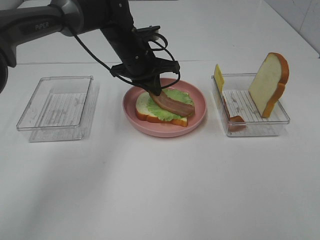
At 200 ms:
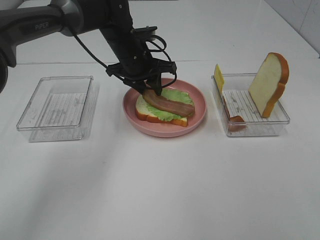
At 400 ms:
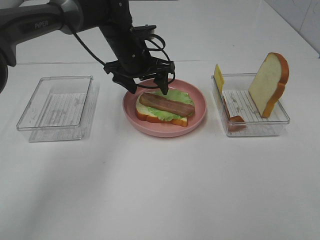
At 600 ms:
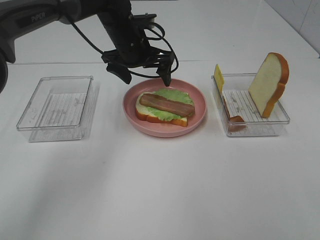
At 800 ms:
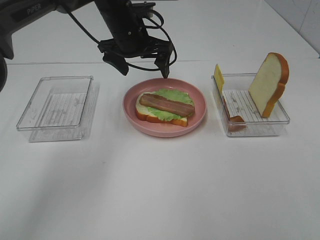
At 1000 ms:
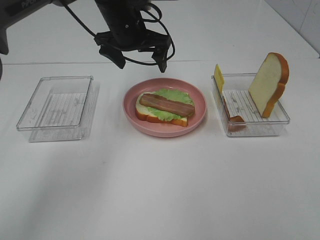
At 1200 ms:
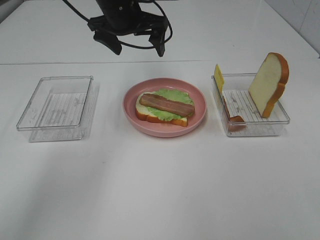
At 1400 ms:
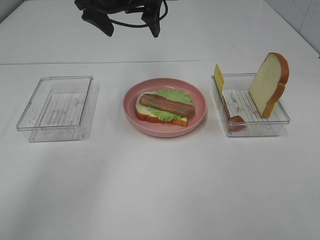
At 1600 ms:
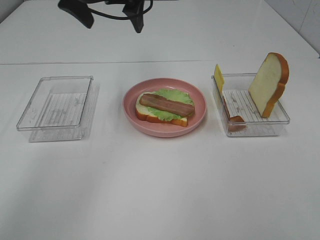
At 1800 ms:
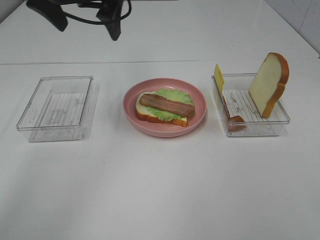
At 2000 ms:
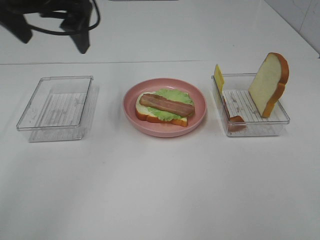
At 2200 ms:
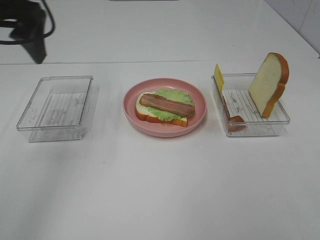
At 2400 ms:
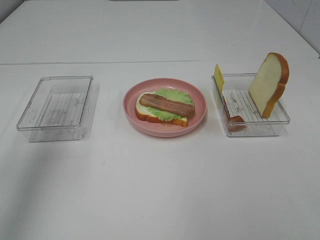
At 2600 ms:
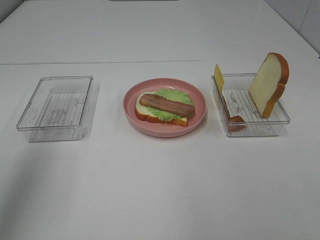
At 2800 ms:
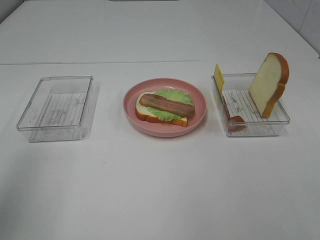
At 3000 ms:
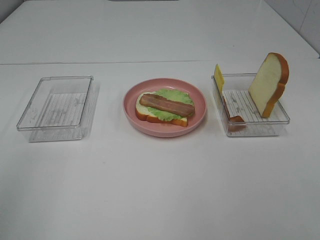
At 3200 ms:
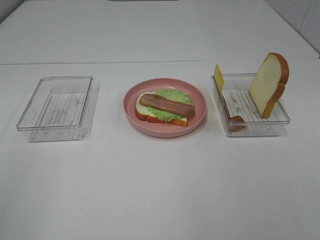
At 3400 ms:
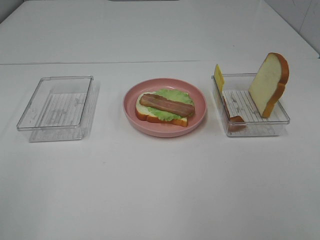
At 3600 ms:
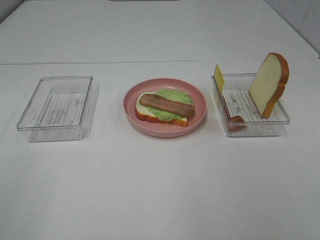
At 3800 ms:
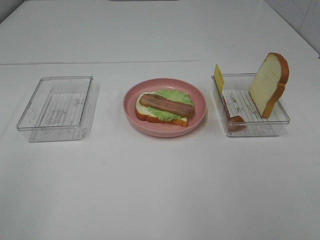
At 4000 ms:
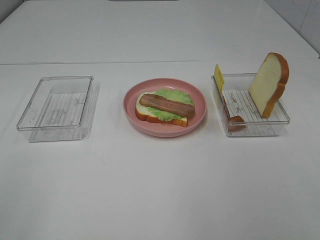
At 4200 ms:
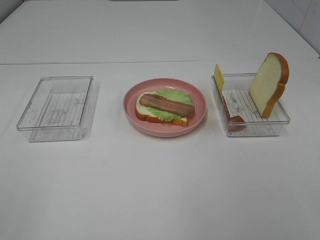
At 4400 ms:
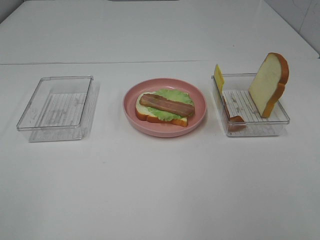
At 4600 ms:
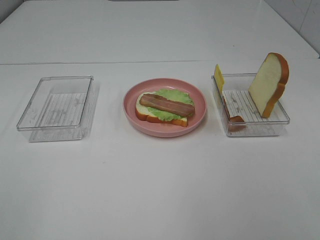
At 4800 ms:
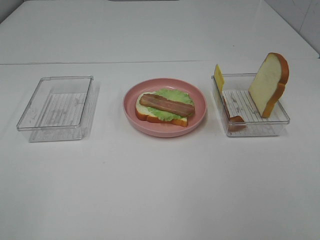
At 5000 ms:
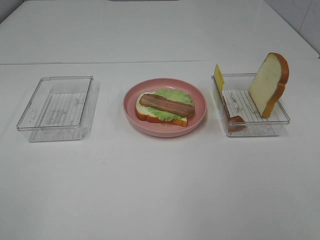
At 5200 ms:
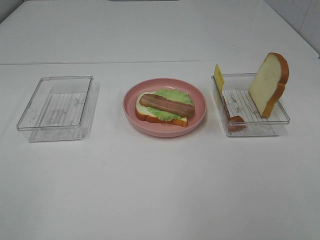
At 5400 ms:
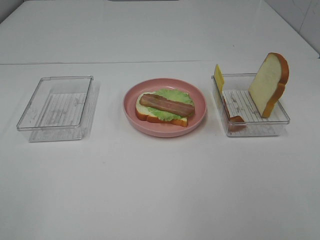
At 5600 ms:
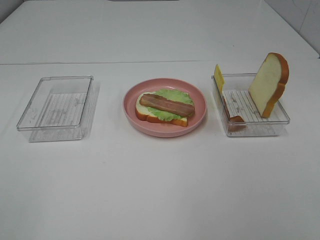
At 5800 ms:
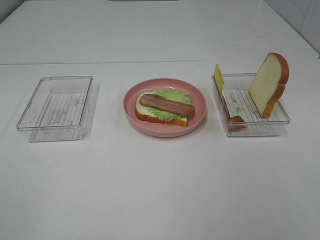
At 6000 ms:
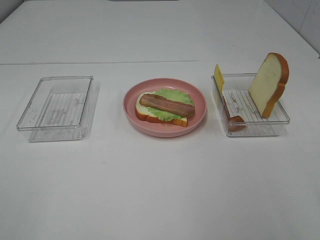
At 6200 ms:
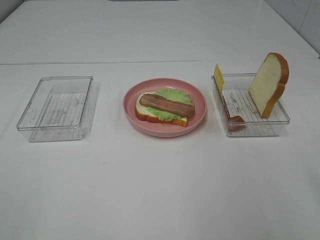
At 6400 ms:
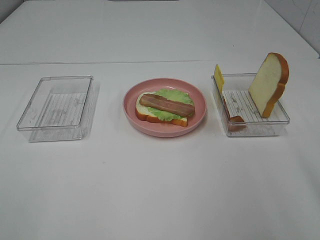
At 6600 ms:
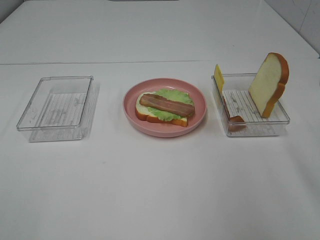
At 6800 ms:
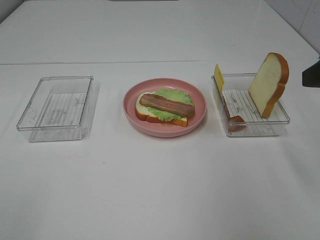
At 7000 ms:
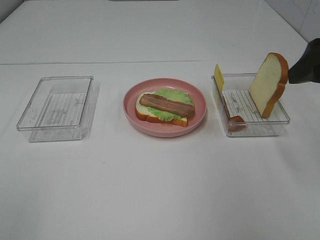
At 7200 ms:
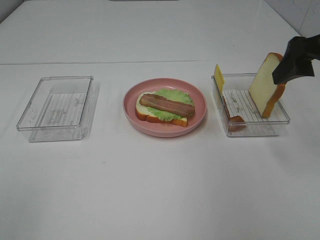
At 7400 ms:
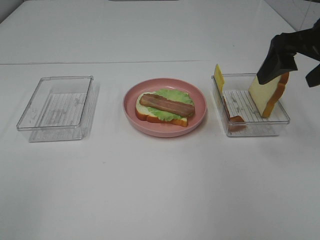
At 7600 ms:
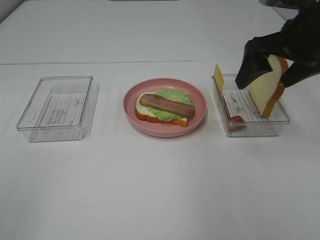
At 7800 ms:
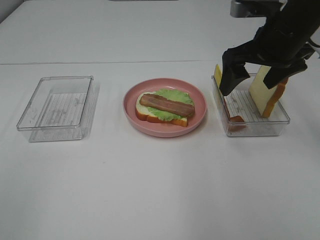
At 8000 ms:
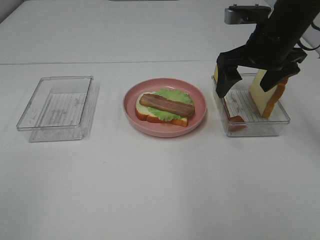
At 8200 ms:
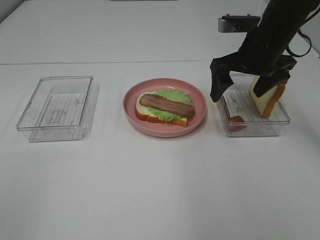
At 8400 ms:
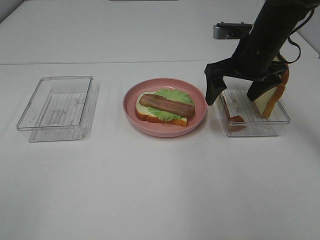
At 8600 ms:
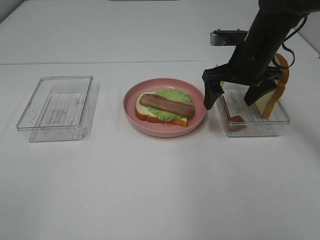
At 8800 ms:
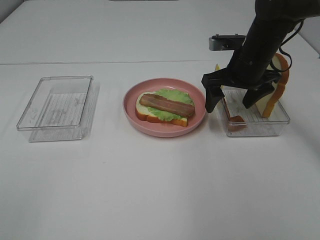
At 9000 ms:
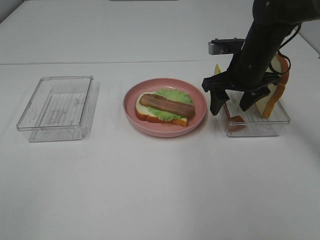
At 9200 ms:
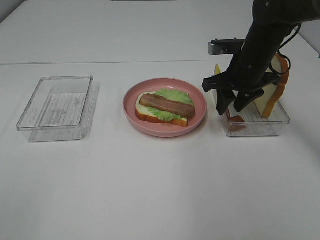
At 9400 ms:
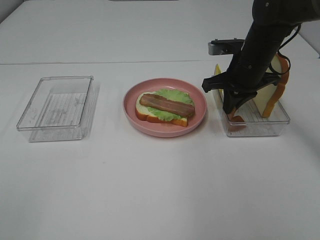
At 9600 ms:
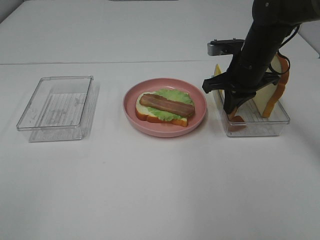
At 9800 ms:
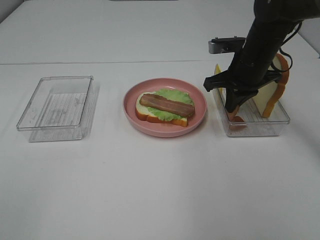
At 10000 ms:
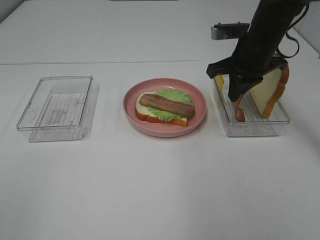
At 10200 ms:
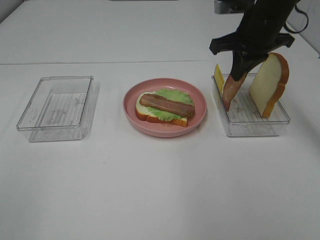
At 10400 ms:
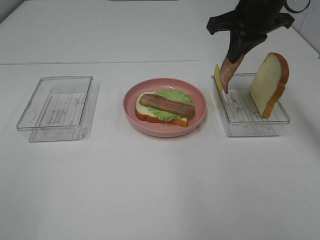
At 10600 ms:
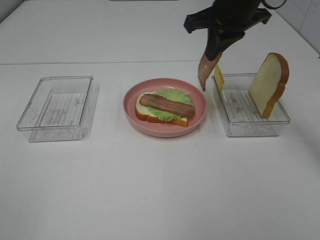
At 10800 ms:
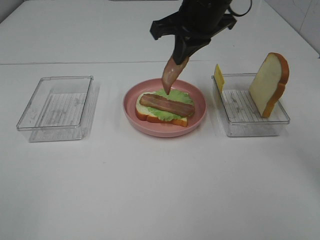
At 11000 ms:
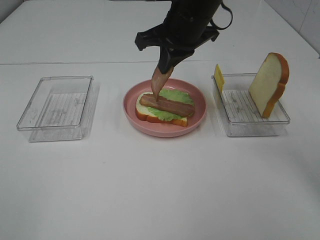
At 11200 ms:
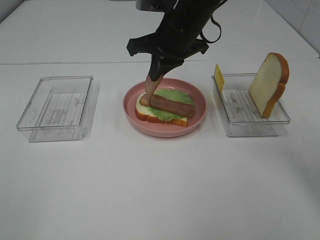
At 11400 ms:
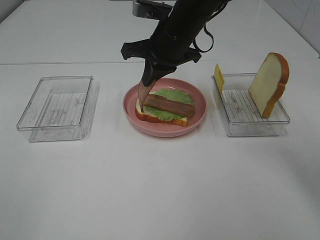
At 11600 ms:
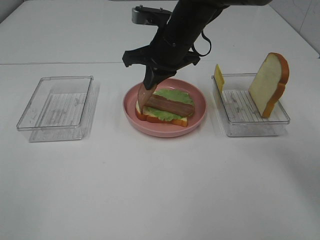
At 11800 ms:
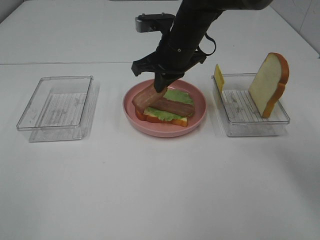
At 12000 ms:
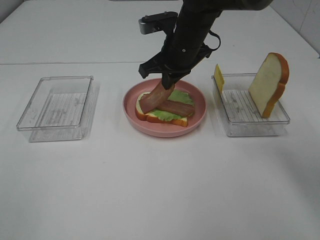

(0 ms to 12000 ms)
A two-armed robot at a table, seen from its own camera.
Task of the whole recording: Make sandwiches.
Step, 600 ms - 9800 ms: Right hand:grab the bacon.
0 ms - 1600 ms: The left gripper goes roughly 15 cm upward, and opens up.
1600 ms - 3000 ms: The left gripper moves backward and to the left, approximately 40 cm.
6000 ms - 7600 ms: The right gripper goes some 30 cm forward.
7600 ms - 9000 ms: The right gripper heads downward and forward, covering some 15 cm.
9000 ms - 10400 ms: The right gripper goes roughly 10 cm upward, and closes.
10400 ms - 12000 ms: The right gripper travels to the left and downward by about 15 cm.

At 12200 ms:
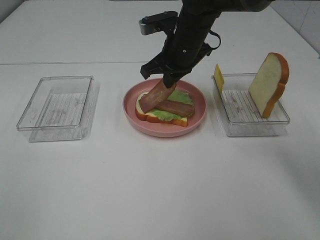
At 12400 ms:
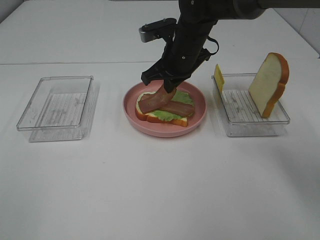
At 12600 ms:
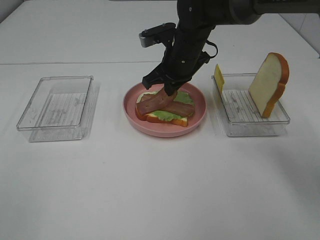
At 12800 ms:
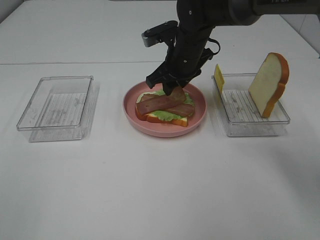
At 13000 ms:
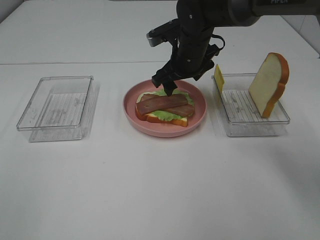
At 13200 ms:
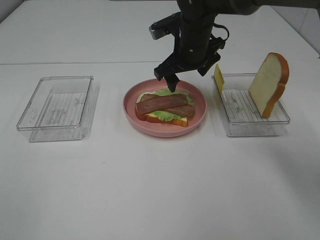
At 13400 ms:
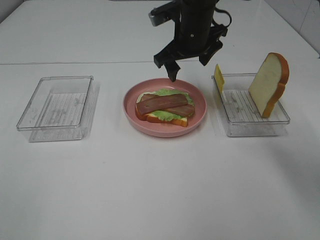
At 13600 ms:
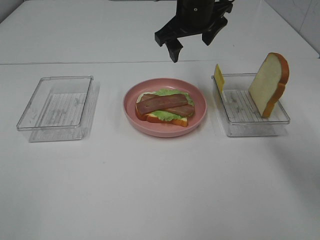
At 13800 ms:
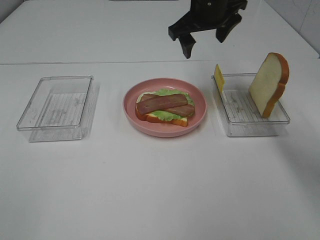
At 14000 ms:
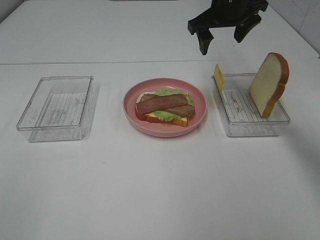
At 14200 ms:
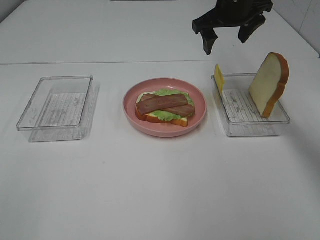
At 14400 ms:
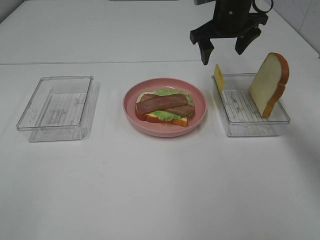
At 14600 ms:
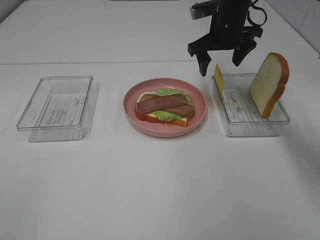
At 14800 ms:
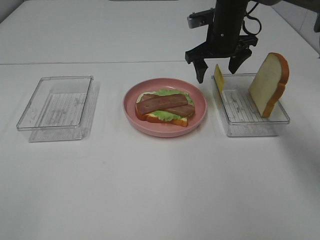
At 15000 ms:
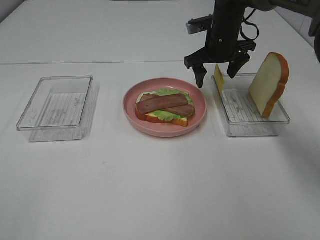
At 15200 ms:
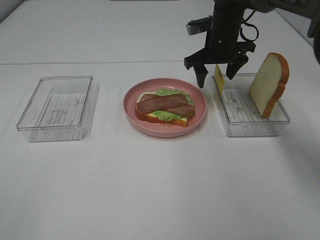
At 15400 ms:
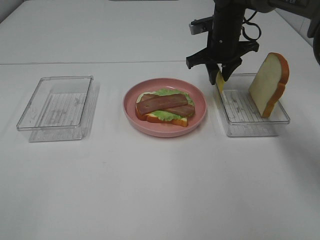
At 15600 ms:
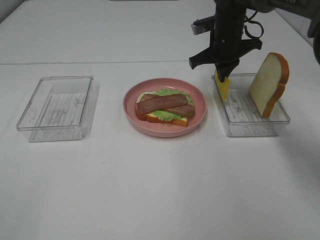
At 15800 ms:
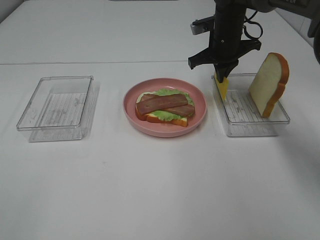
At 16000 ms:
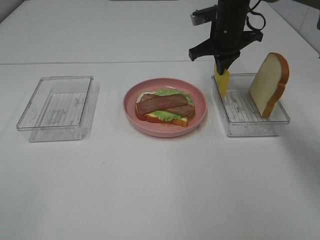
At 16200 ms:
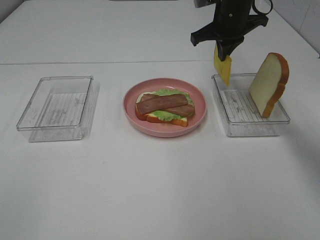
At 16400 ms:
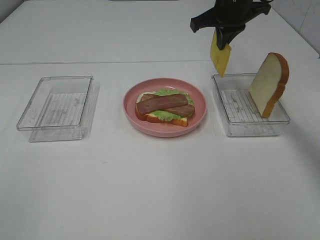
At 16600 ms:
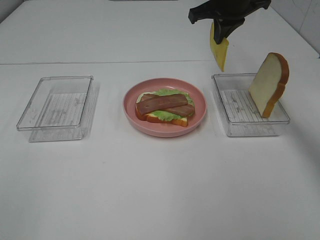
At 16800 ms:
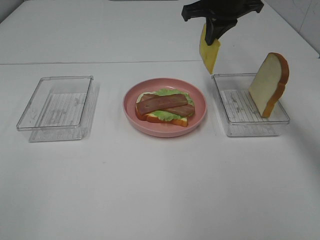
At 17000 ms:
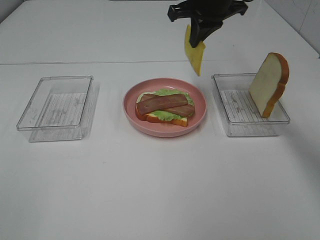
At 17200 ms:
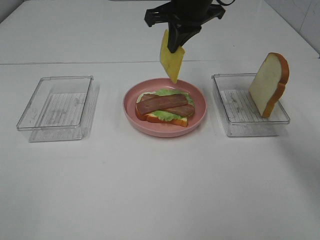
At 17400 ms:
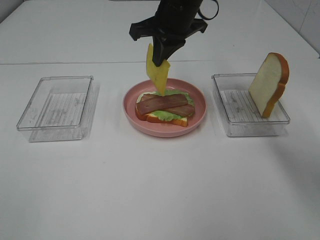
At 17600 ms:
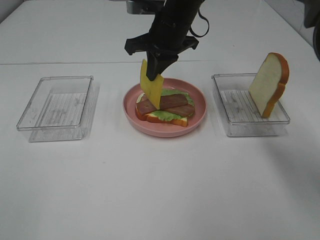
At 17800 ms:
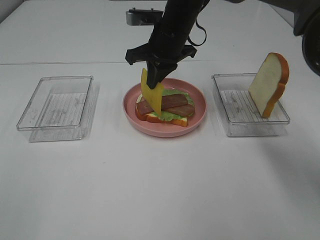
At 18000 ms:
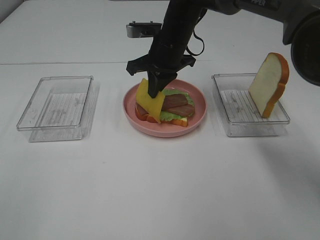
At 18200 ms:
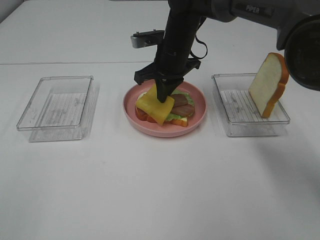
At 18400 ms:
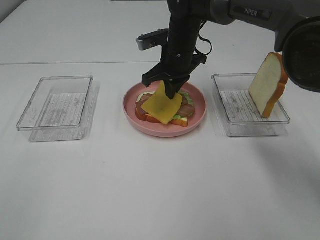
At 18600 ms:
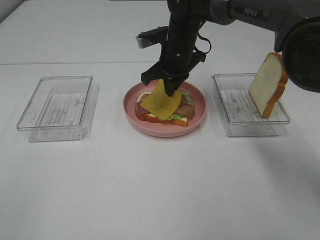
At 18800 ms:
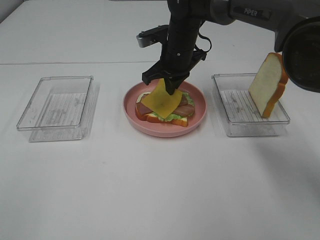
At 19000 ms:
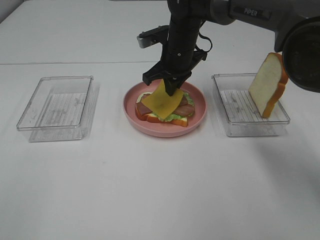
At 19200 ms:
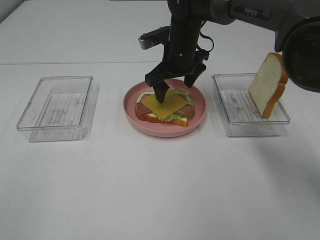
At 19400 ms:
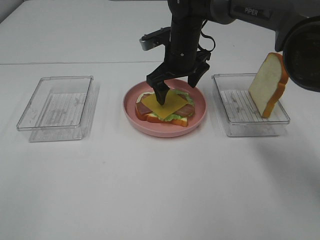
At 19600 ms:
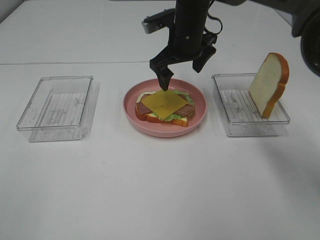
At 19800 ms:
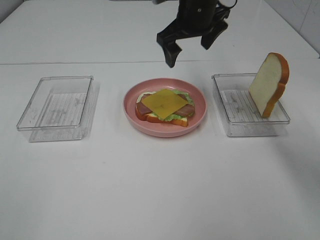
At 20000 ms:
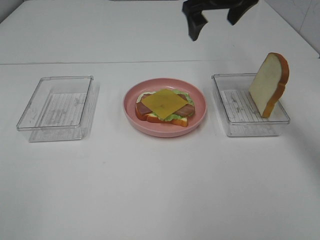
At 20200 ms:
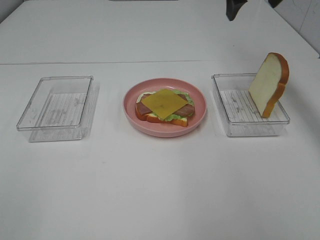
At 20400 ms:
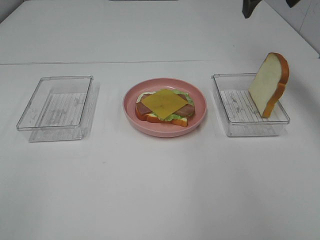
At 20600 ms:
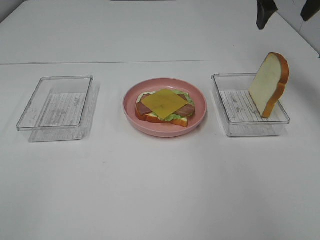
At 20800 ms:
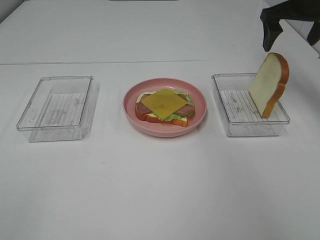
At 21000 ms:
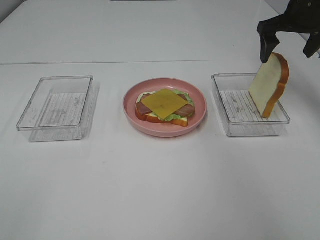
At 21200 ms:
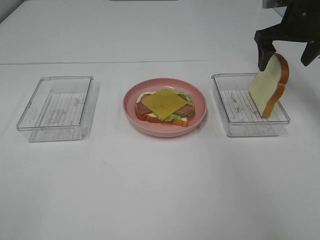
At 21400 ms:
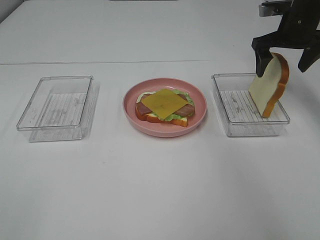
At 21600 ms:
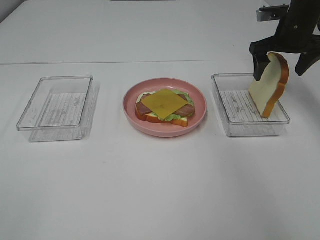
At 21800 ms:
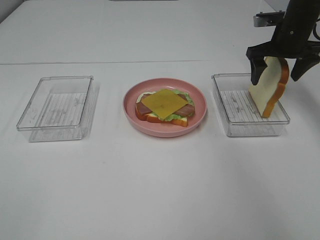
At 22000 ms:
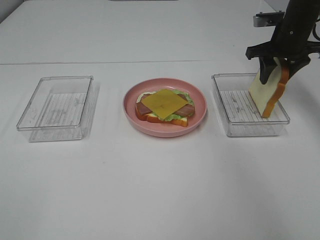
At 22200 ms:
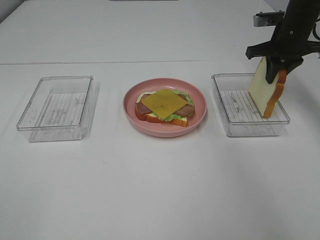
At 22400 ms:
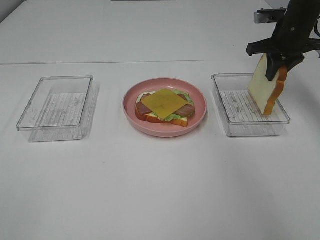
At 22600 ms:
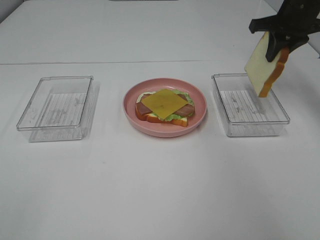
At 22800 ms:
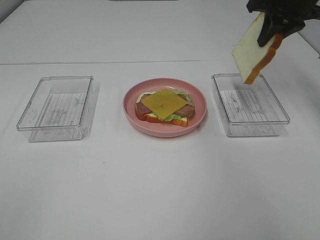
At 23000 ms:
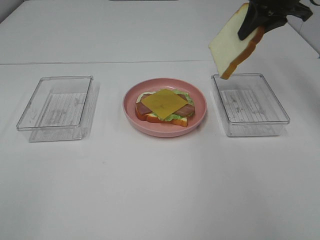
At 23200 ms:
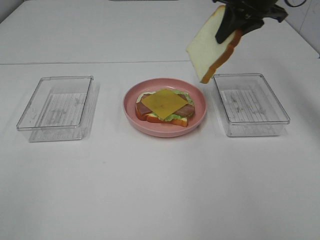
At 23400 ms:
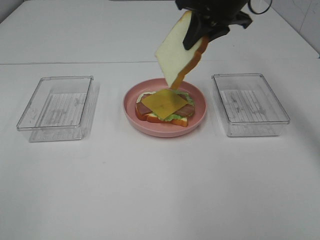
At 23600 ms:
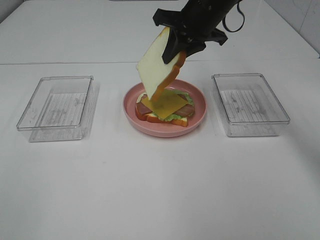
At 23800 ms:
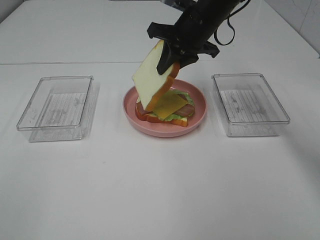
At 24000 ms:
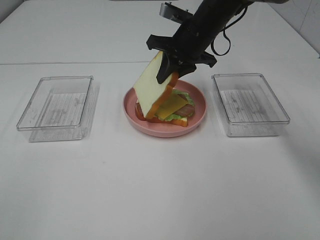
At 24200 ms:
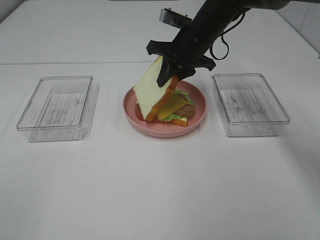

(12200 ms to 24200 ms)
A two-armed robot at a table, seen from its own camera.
Task of the whole recording: Make sandwiches.
Step, 13000 ms - 15800 ms: Right hand:grab the cheese slice.
Step, 16000 ms - 19400 ms: Right hand:place the cheese slice on top of the bacon.
Step, 19600 ms - 22200 ms: Right hand:grab the bread slice.
12200 ms - 13800 ms: The right gripper heads upward, covering roughly 5 cm, and opens.
13800 ms - 15200 ms: The right gripper shifts approximately 10 cm downward.
15200 ms - 16600 ms: The right gripper is displaced upward by roughly 10 cm, and closes its fingers.
16600 ms - 18200 ms: The right gripper shifts some 15 cm downward and to the left.
18200 ms - 19800 ms: The right gripper goes roughly 10 cm upward, and opens.
19800 ms - 21200 ms: The right gripper moves to the right, approximately 20 cm.
21200 ms - 22600 ms: The right gripper closes.
22600 ms - 24200 ms: The right gripper shifts some 20 cm to the left.
